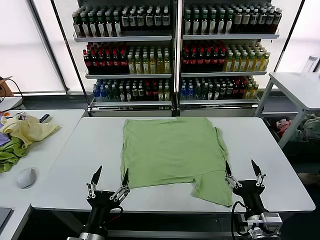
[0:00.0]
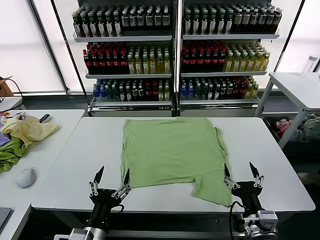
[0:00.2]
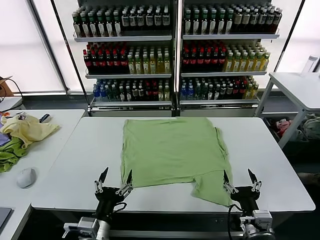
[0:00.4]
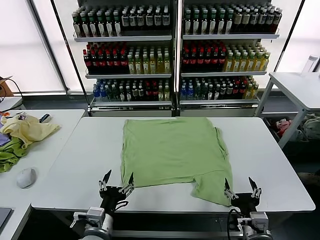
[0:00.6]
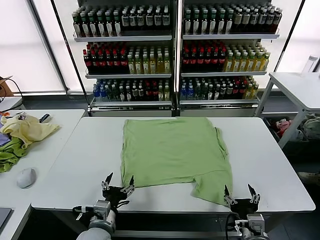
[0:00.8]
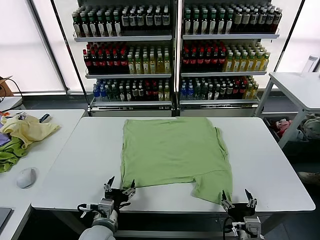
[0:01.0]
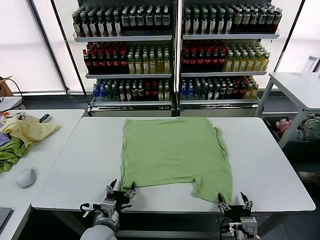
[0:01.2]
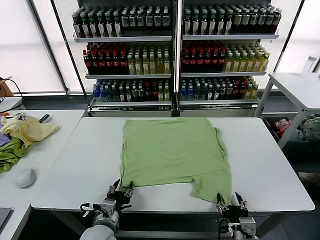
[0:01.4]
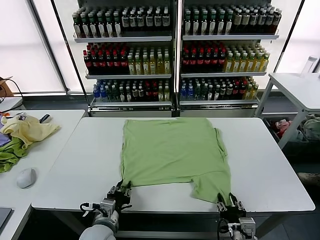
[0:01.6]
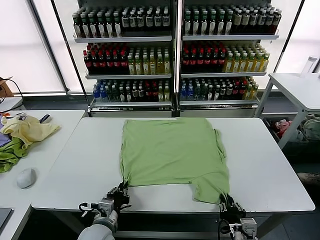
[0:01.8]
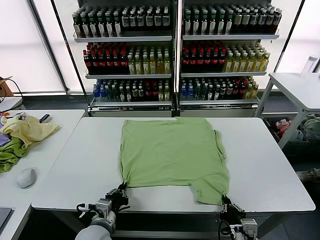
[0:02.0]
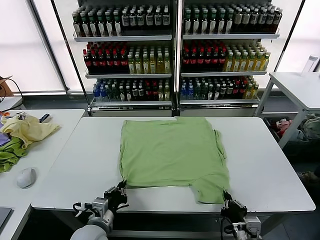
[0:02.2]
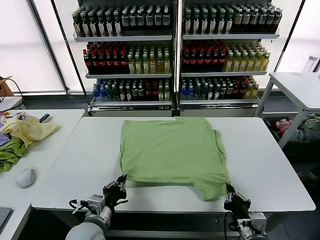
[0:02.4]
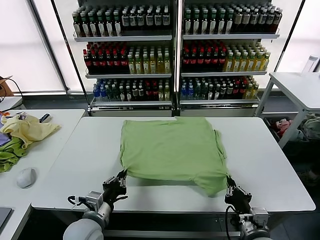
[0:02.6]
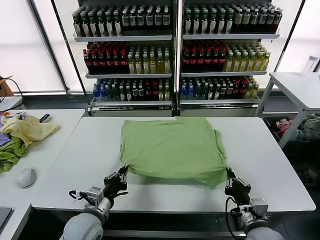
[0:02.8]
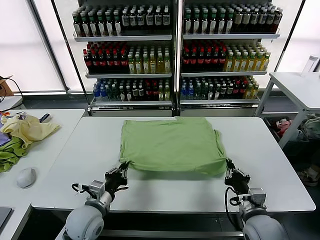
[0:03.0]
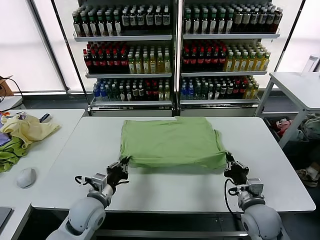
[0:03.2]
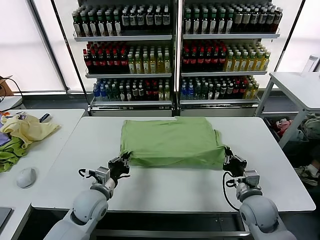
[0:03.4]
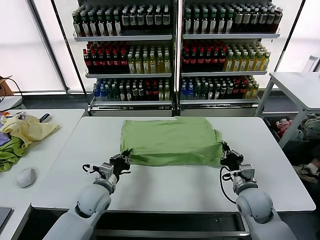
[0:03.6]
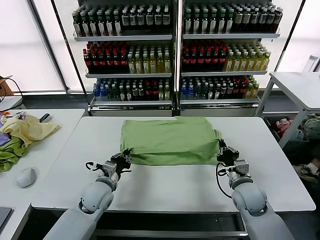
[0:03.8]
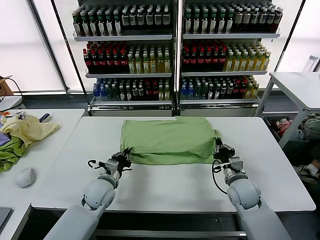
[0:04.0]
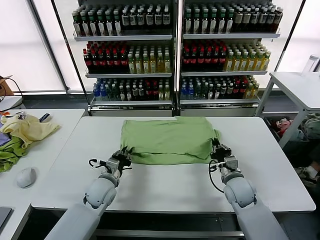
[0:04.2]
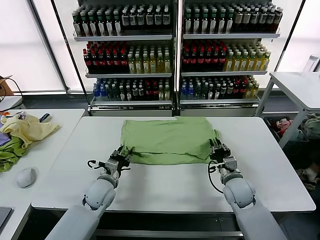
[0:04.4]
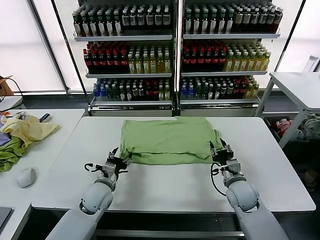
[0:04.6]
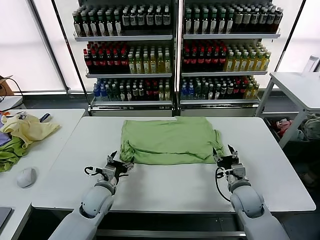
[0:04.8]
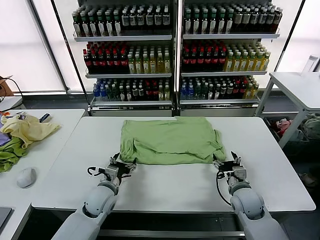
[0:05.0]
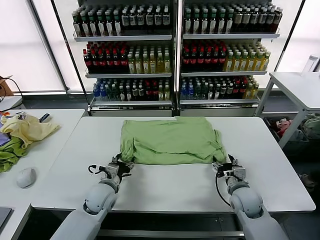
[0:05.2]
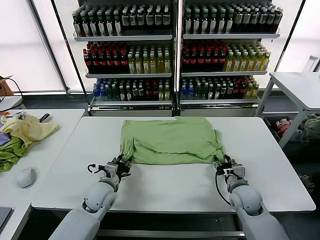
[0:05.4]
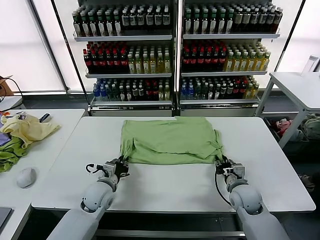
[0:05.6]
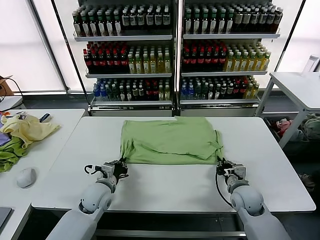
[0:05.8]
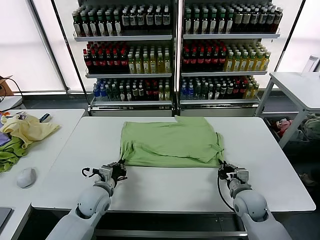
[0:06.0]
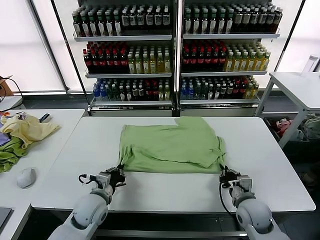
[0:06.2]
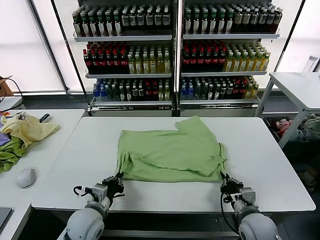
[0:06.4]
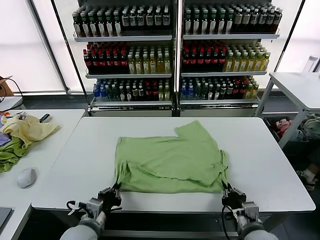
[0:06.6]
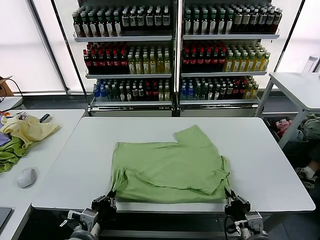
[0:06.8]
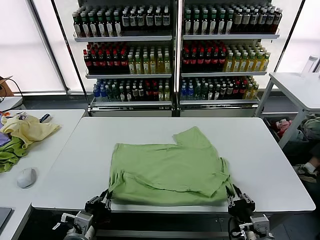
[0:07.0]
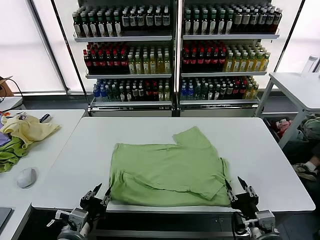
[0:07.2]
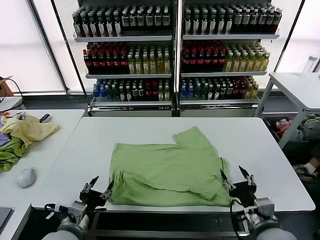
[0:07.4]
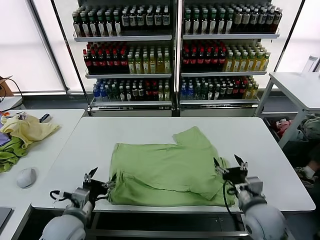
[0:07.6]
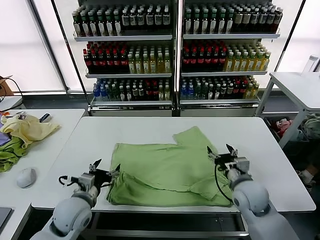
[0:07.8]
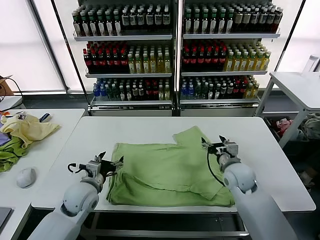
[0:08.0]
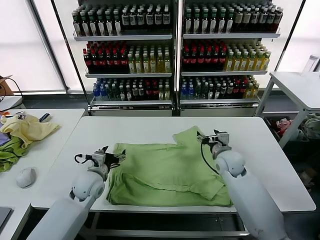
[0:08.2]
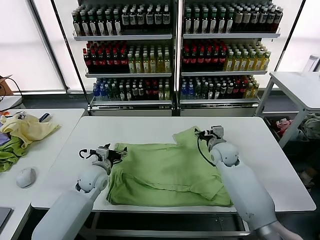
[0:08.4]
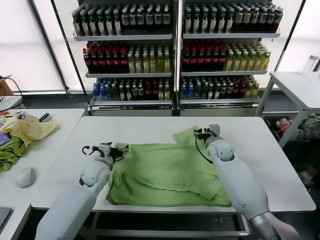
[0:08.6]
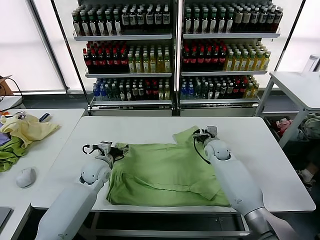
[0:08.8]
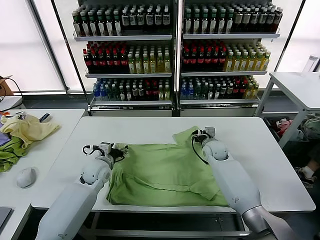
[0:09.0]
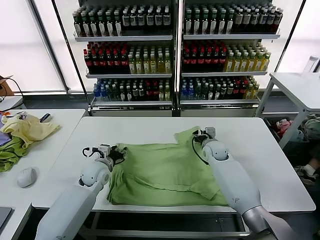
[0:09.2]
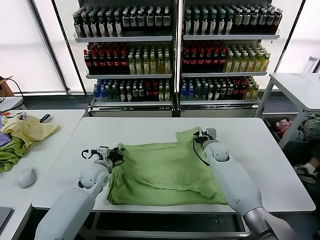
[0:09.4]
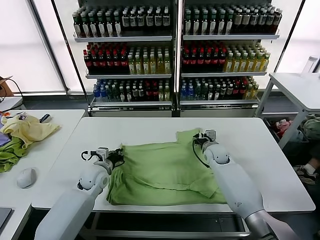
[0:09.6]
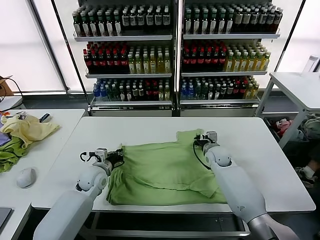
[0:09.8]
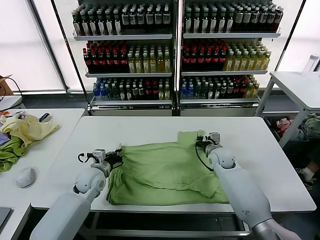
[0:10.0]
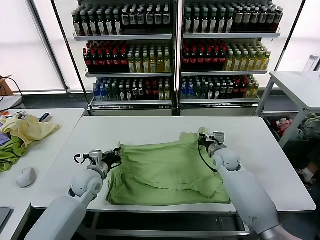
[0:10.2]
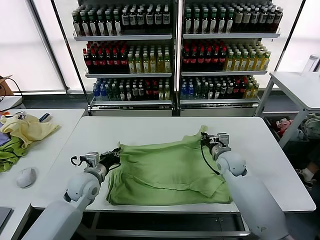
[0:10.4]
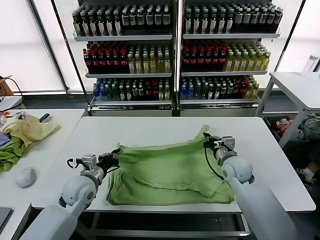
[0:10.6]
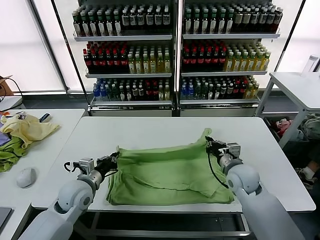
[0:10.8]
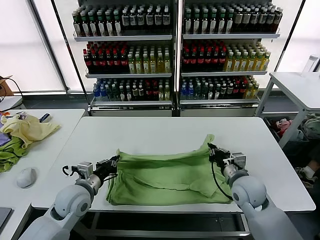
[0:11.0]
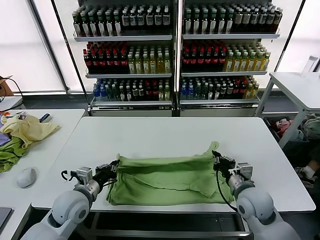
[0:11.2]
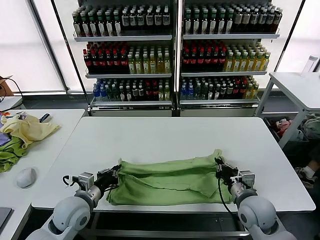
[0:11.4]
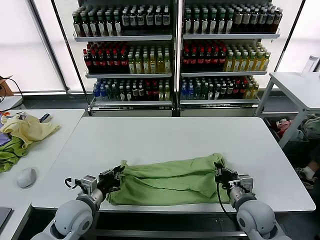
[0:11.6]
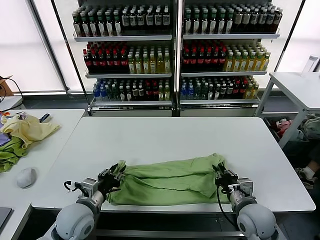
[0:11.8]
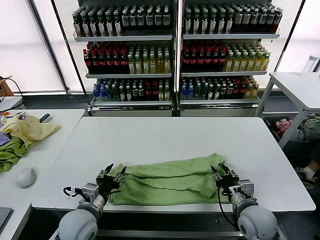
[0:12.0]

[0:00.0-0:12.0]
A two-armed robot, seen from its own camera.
Task of the whole recording: fold and organize the clothes.
Step, 0:00.0 to 0:02.0: use both grippers simultaneously to clamp the lower edge of the clothing fabric.
Step, 0:02.2 to 0:04.4: use both grippers to drag the lower edge of the fabric forward and fold it over the upper edge.
Step, 0:04.8 to 0:07.0: Drag the clothes downward with both gripper.
Step, 0:07.2 to 0:09.8: use both grippers simultaneously to clamp the upper edge of the clothing fabric.
0:01.6 to 0:03.0: The right gripper heads forward, covering roughly 10 cm, and closes. Meanwhile the left gripper changes place by approximately 5 cm.
0:03.0 to 0:04.4: Both grippers move forward, roughly 10 cm. The right gripper opens, while the left gripper opens up.
0:04.4 to 0:06.0: The left gripper closes its fingers, while the right gripper moves about 5 cm, and closes.
0:06.0 to 0:07.6: The left gripper travels backward and upward by approximately 15 cm, and opens. Meanwhile the right gripper travels upward by about 5 cm, travels backward and back again, some 15 cm each way, and opens.
0:07.6 to 0:09.0: Both grippers move forward, about 25 cm.
0:09.0 to 0:10.4: The two grippers go about 10 cm backward. The right gripper closes its fingers, while the left gripper closes.
0:10.4 to 0:12.0: The left gripper travels backward by about 10 cm, and opens its fingers. Meanwhile the right gripper travels backward by approximately 20 cm, and opens its fingers.

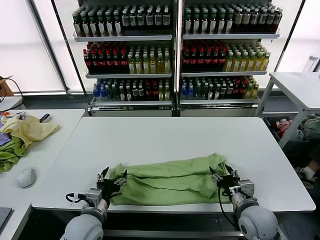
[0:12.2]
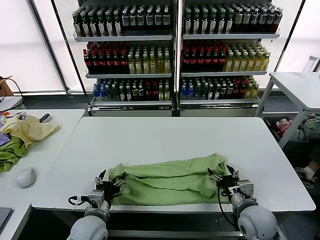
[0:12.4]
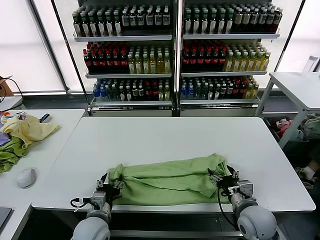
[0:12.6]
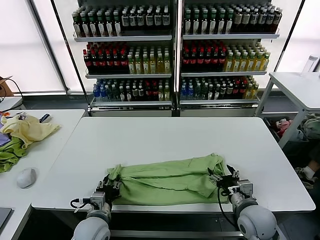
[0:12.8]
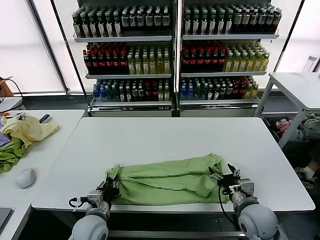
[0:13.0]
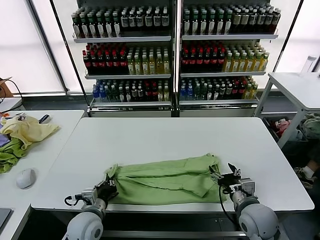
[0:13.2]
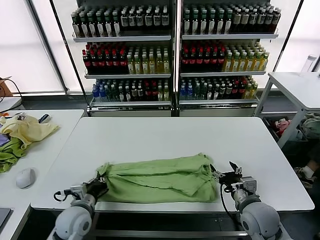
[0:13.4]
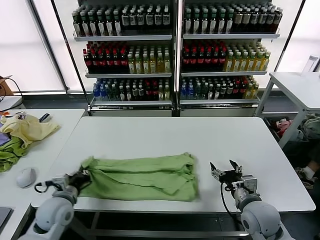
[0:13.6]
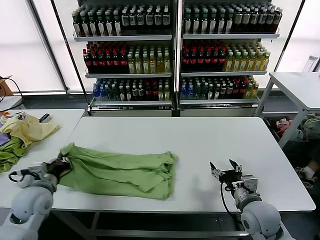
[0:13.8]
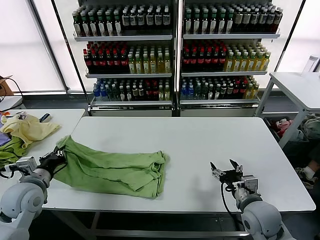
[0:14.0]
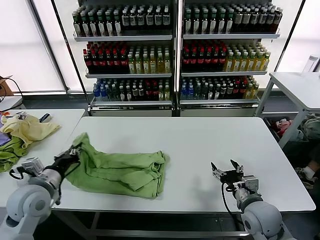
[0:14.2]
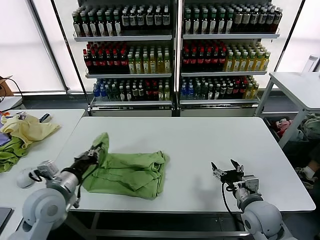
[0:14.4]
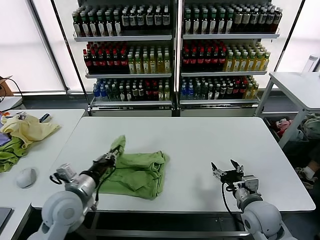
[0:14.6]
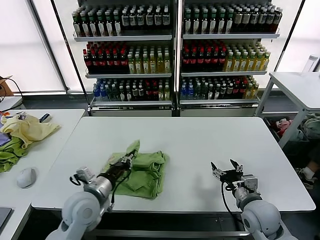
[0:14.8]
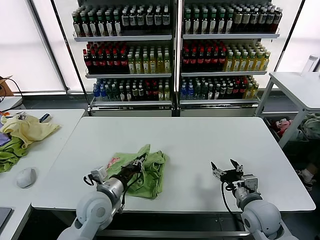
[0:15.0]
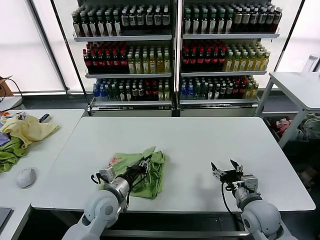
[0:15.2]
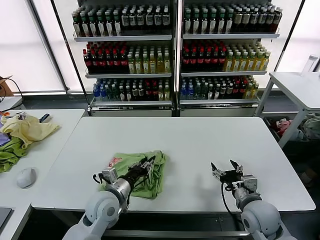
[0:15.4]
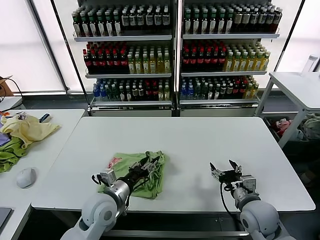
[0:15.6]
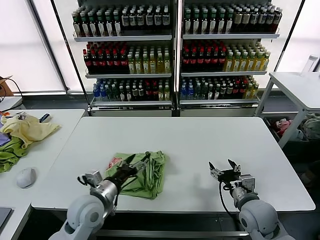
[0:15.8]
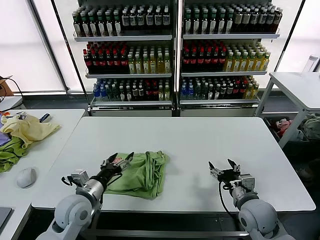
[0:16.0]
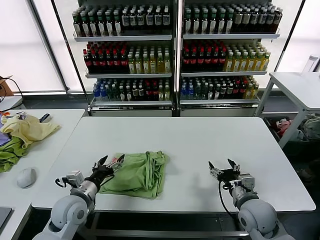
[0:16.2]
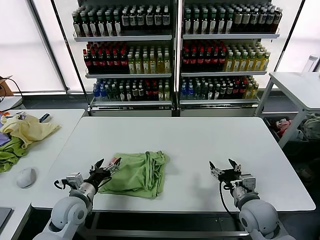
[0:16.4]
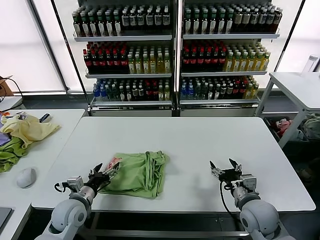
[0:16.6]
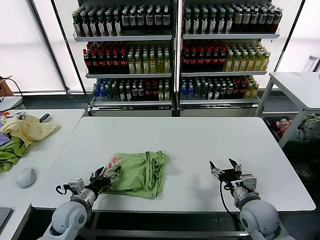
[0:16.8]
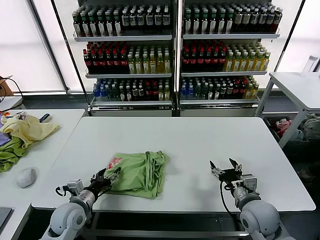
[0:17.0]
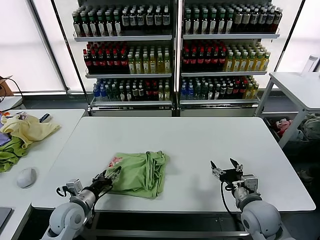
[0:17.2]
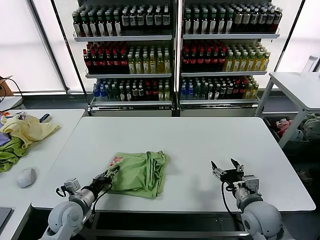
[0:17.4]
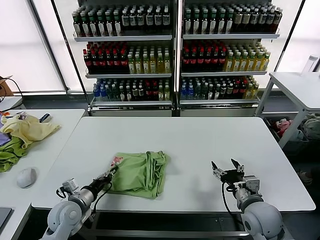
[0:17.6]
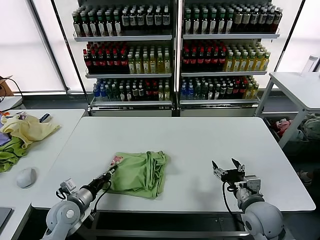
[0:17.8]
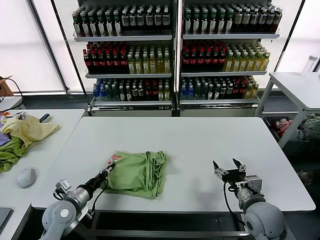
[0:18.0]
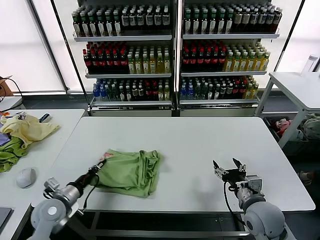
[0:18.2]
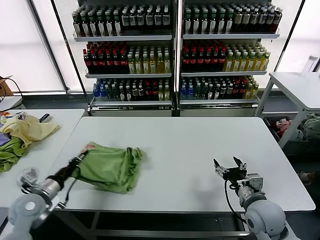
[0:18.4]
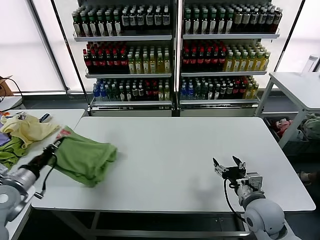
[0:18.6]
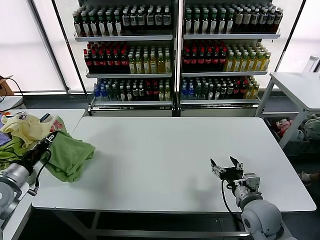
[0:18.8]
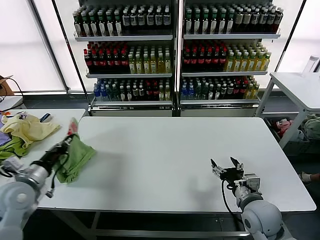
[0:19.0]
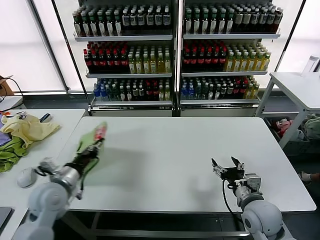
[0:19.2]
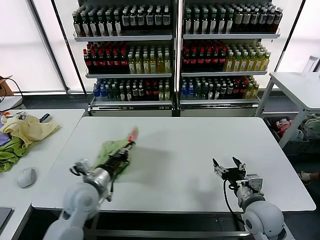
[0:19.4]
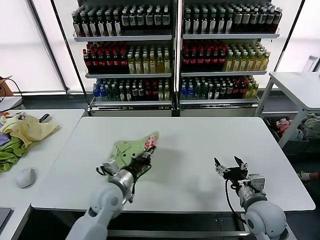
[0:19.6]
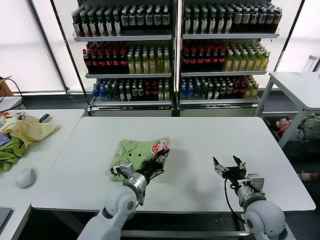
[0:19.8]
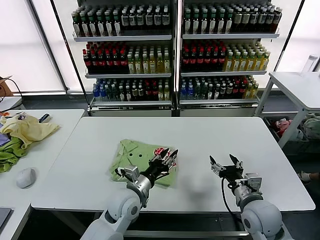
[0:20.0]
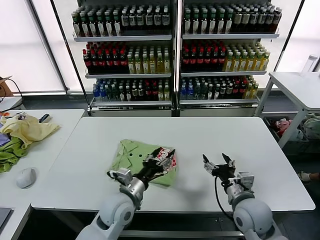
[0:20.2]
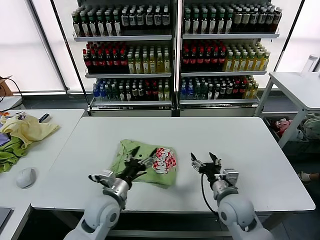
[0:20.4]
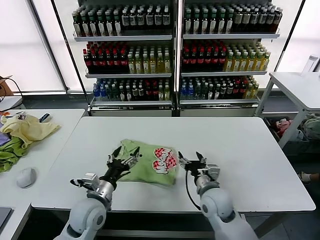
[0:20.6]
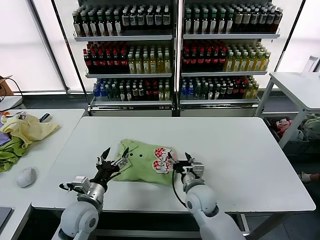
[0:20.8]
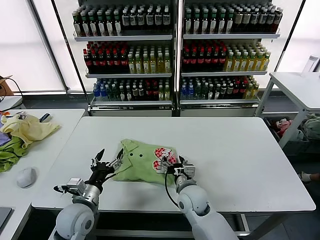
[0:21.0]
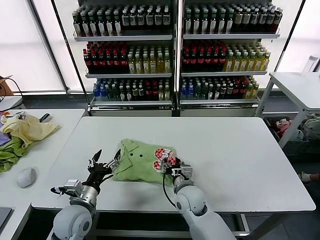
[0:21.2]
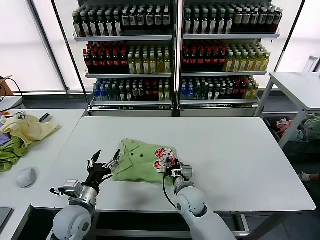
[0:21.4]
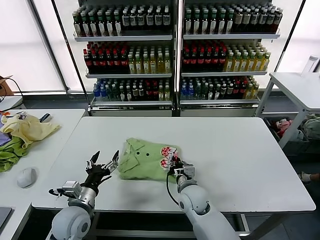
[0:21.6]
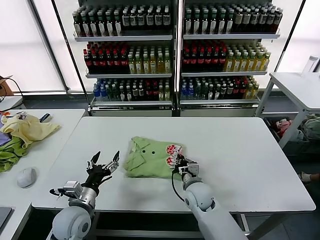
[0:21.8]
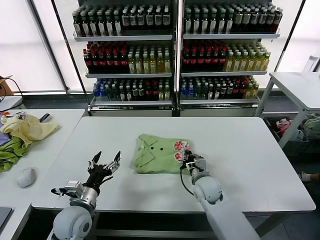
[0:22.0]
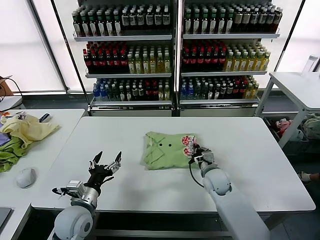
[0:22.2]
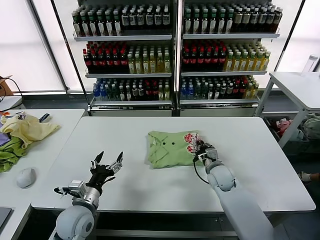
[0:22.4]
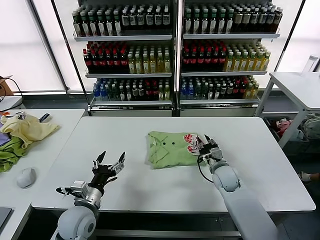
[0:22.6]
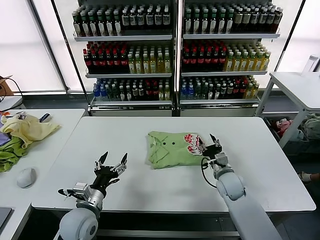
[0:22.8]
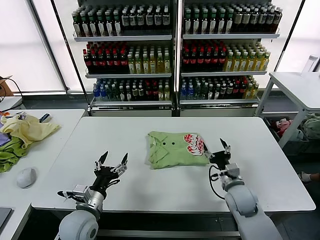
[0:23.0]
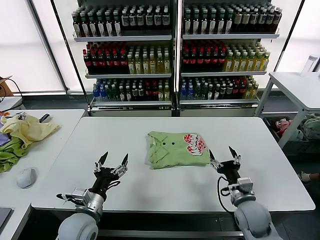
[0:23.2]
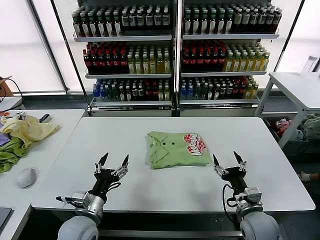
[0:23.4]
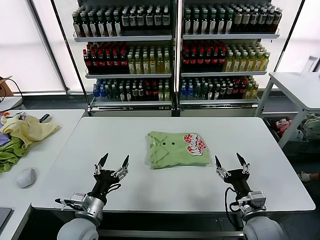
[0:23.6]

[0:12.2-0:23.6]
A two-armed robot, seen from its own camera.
Task of the whole recording: fold and organize the clothes.
Step, 0:12.2 to 0:13.0: use the left gripper to clamp the left edge of the fabric.
Step, 0:13.4 to 0:15.6: use the left gripper to drag the left edge of the fabric to the left and folds it over the right edge.
Step, 0:15.8 to 0:19.8: Flip the folded clothes over with left gripper.
Step, 0:20.2 to 0:22.6: Drag the clothes to the center of the table.
0:12.2 to 0:13.6: The left gripper shifts approximately 10 cm to the left, and closes up.
0:13.6 to 0:15.0: The left gripper is displaced to the right by roughly 10 cm.
0:15.0 to 0:16.4: The left gripper goes some 10 cm to the left, and opens up.
0:16.4 to 0:17.8: The left gripper closes.
0:17.8 to 0:19.4: The left gripper shifts approximately 10 cm upward, and moves approximately 15 cm to the left and comes back.
0:19.4 to 0:20.8: The right gripper moves to the left and forward, some 15 cm, while the left gripper goes to the right and returns, approximately 15 cm each way, and opens its fingers.
0:20.8 to 0:22.2: The right gripper heads forward and to the right, covering about 10 cm, and closes up.
0:22.2 to 0:23.6: The right gripper is displaced backward and to the right by some 20 cm, and opens its fingers.
